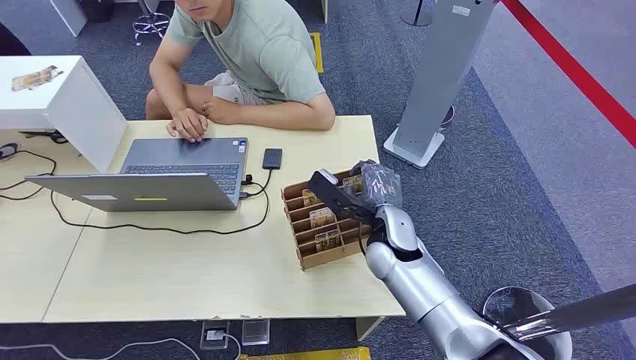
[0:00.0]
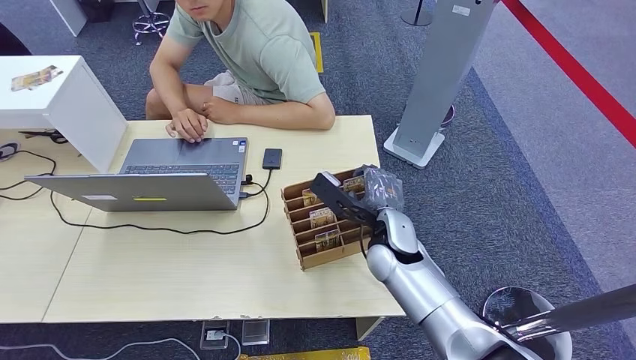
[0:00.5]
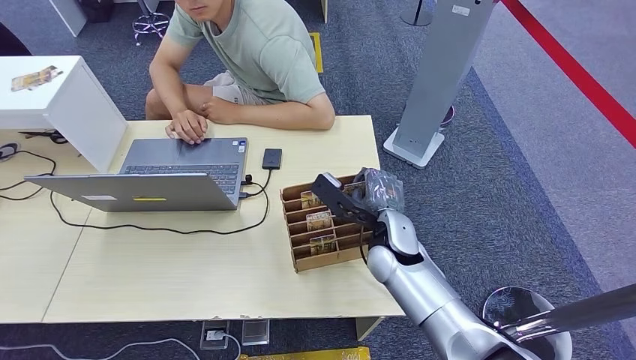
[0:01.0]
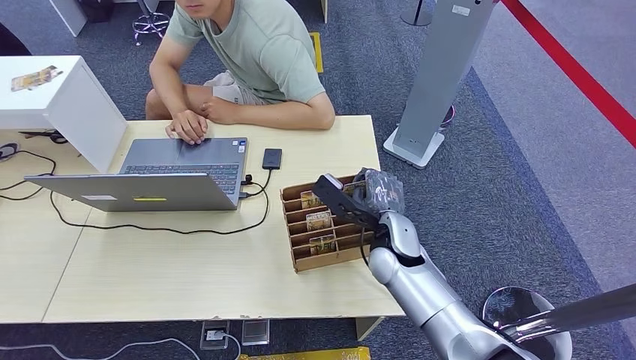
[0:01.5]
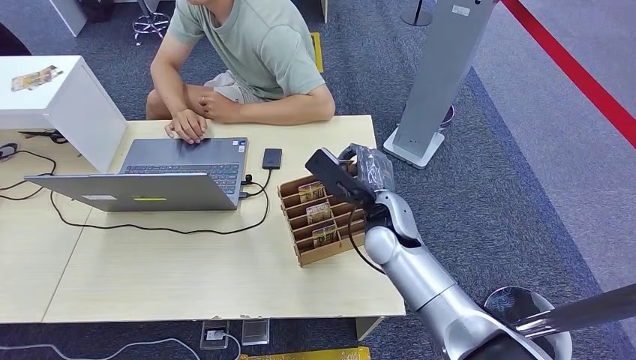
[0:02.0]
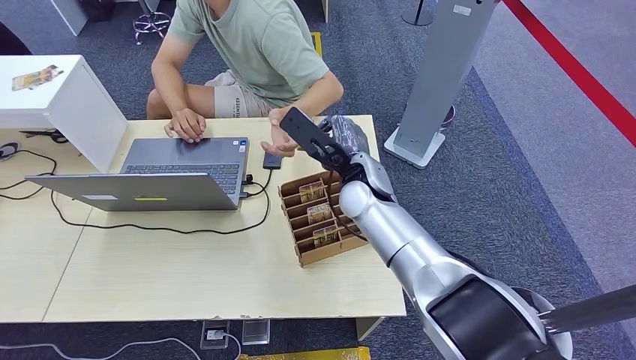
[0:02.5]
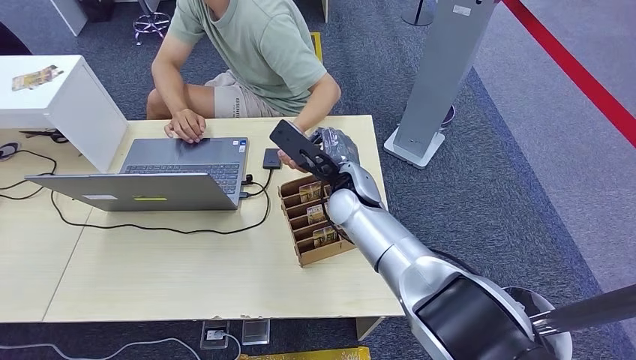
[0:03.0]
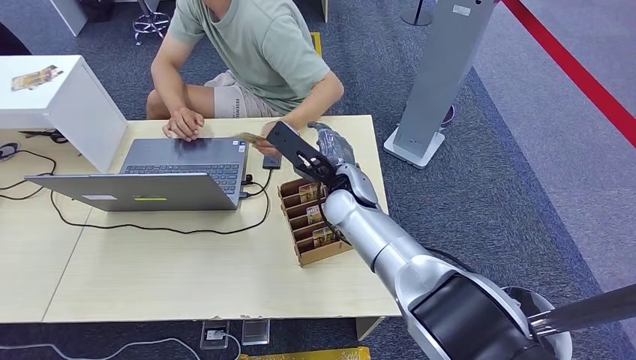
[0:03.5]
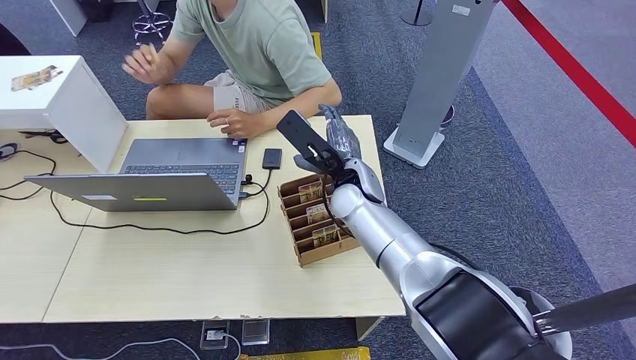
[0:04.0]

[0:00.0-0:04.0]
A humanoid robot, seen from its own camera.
Step, 0:00.0 to 0:02.0: Pick up the room card from the card holder.
Step, 0:03.0 to 0:04.0: Hand the room card to the target.
0:02.0 to 0:04.0: The right hand travels forward by roughly 5 cm.
